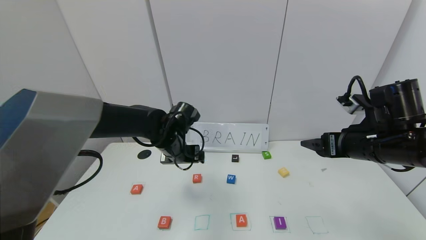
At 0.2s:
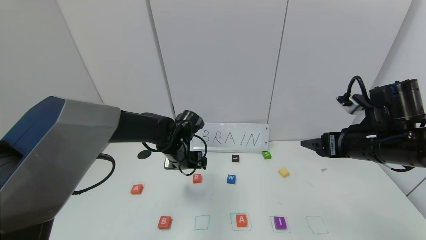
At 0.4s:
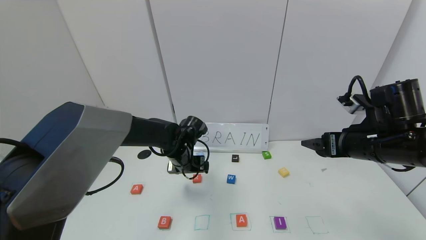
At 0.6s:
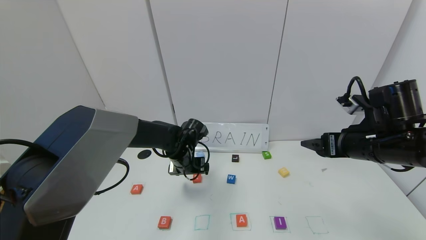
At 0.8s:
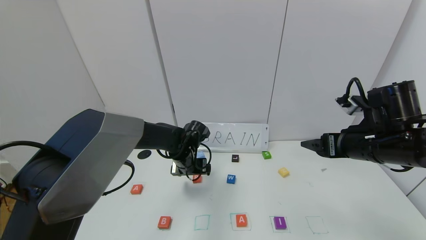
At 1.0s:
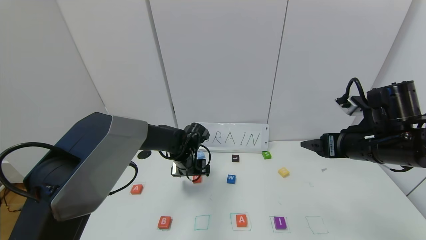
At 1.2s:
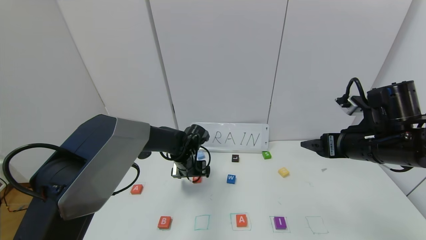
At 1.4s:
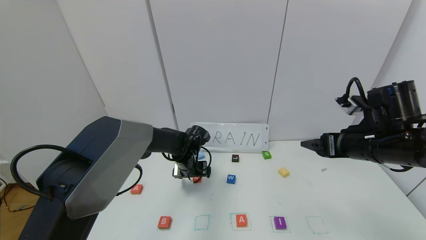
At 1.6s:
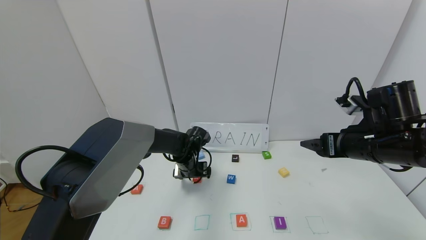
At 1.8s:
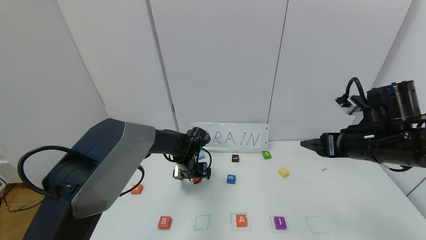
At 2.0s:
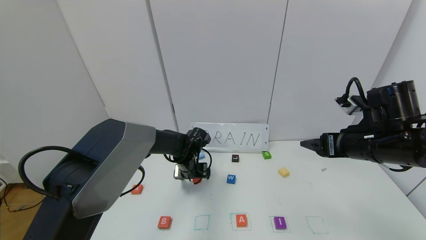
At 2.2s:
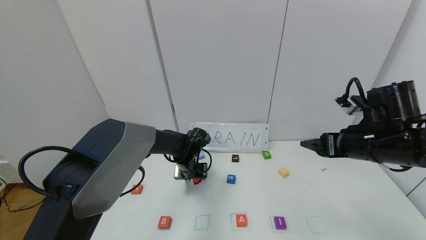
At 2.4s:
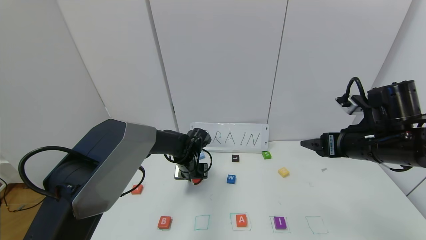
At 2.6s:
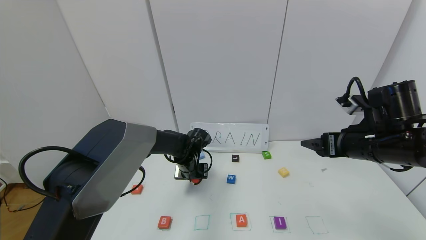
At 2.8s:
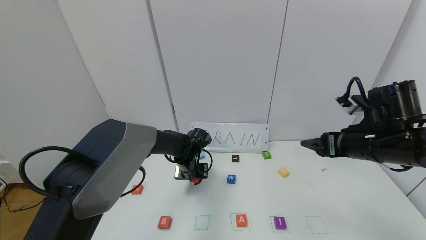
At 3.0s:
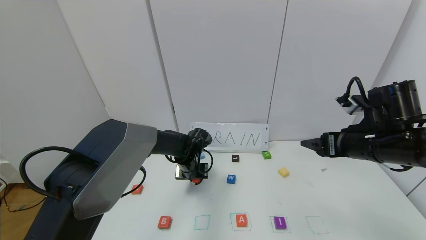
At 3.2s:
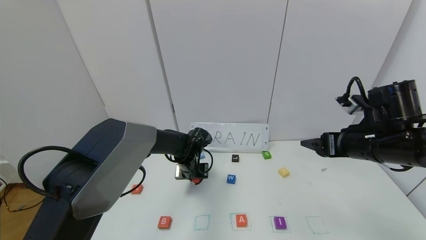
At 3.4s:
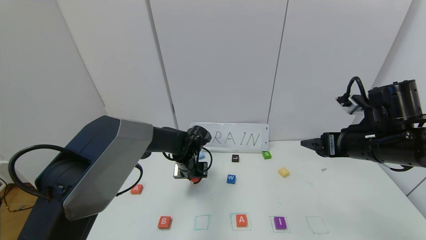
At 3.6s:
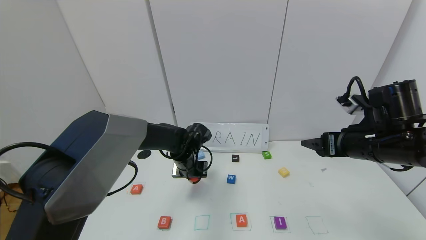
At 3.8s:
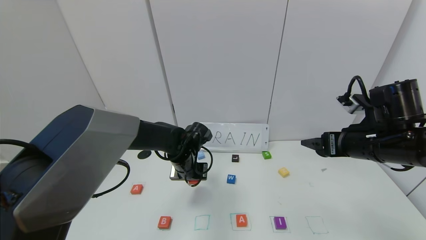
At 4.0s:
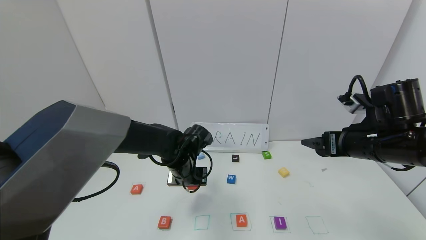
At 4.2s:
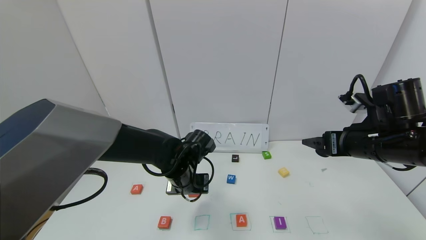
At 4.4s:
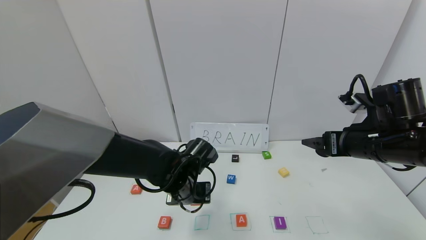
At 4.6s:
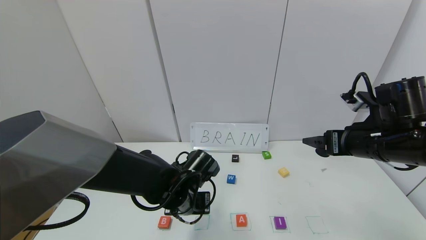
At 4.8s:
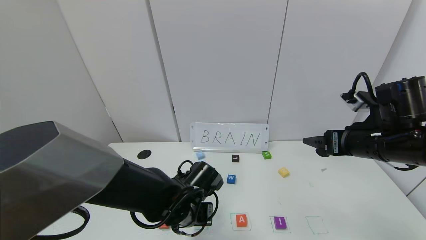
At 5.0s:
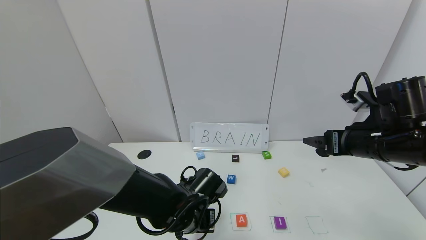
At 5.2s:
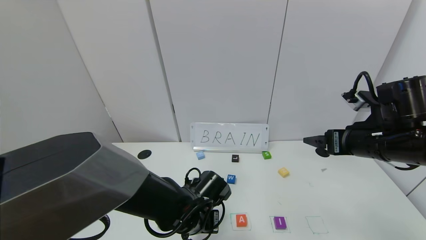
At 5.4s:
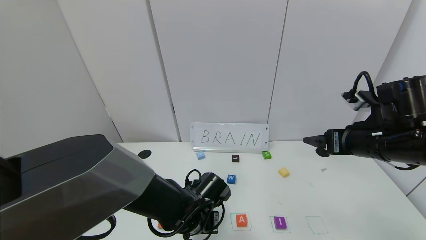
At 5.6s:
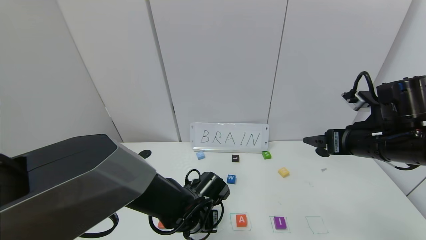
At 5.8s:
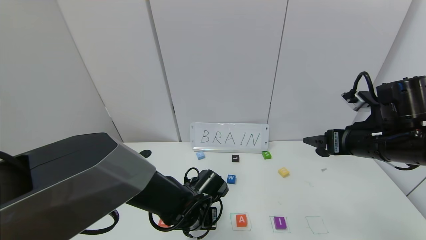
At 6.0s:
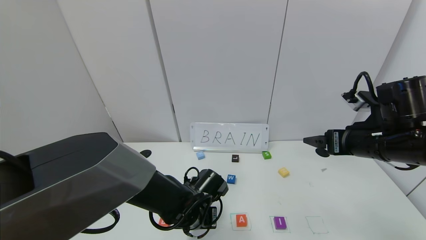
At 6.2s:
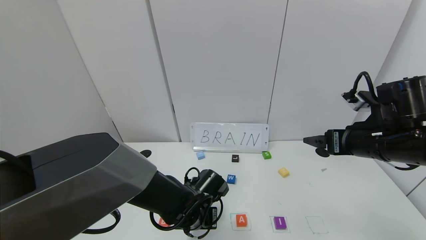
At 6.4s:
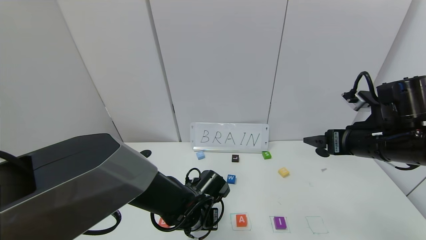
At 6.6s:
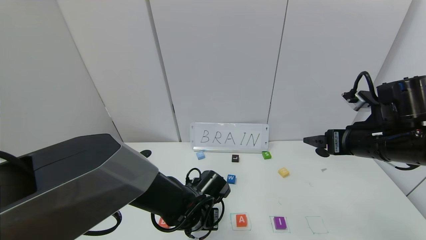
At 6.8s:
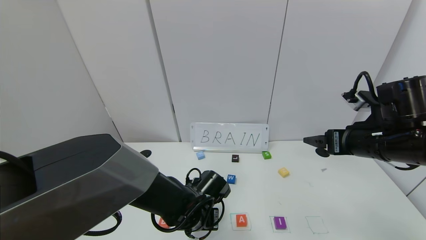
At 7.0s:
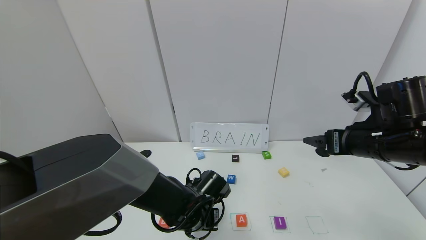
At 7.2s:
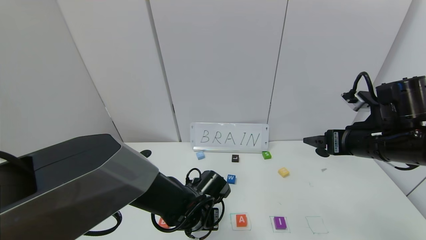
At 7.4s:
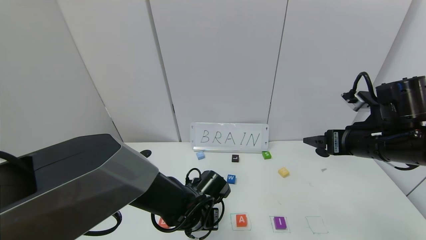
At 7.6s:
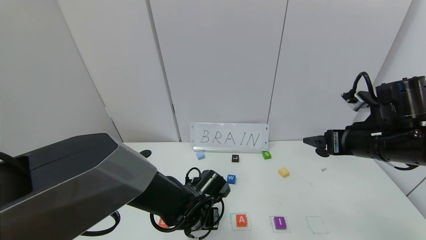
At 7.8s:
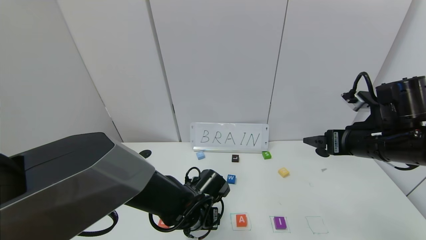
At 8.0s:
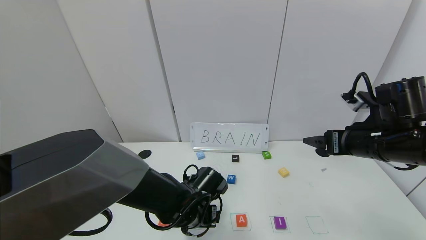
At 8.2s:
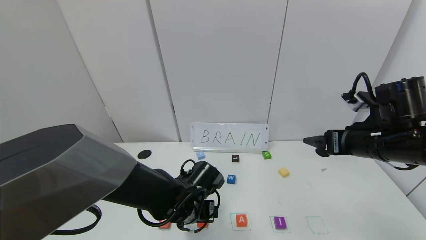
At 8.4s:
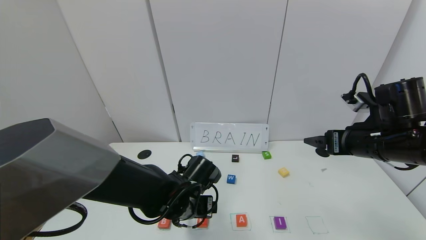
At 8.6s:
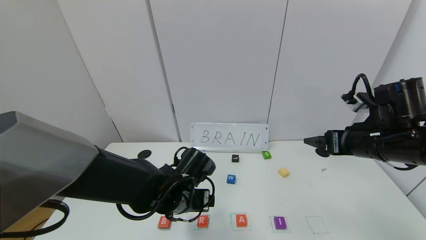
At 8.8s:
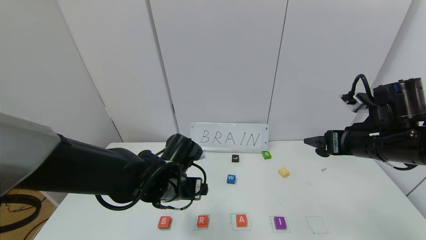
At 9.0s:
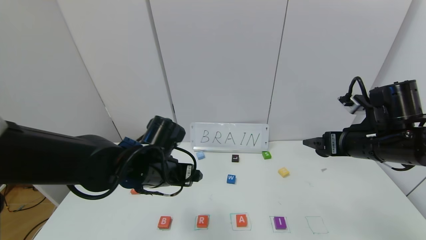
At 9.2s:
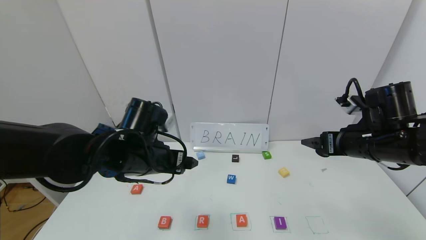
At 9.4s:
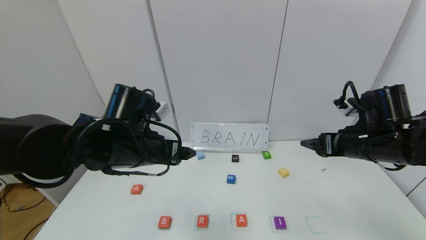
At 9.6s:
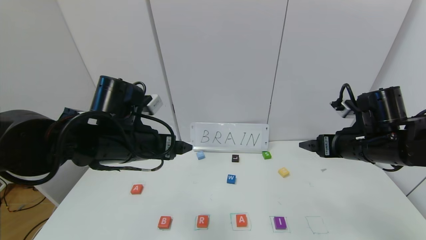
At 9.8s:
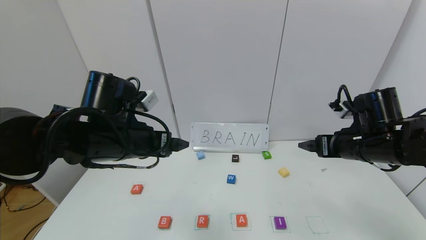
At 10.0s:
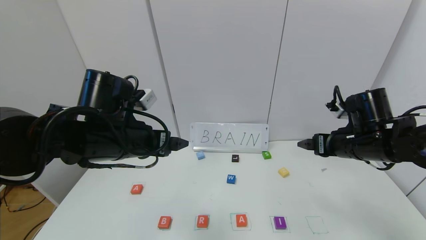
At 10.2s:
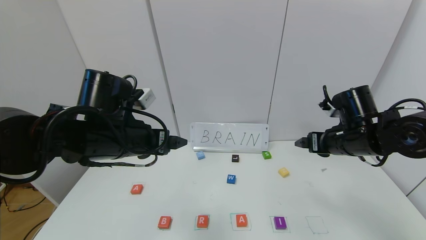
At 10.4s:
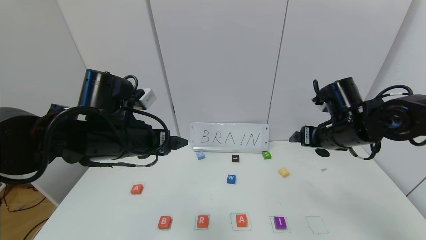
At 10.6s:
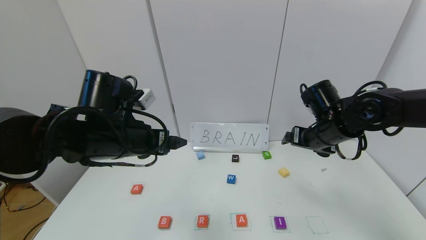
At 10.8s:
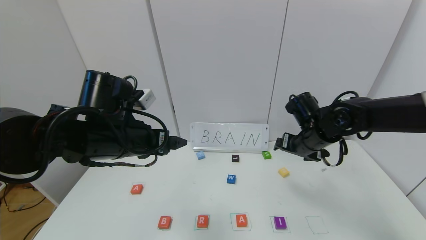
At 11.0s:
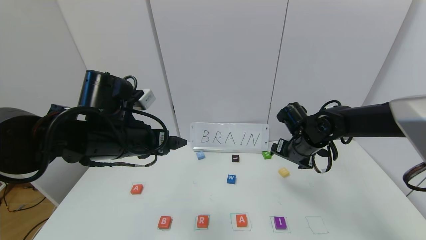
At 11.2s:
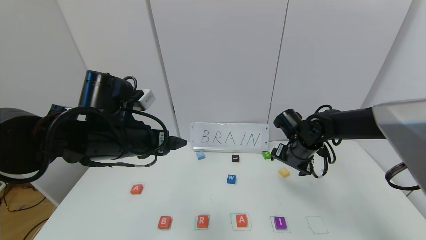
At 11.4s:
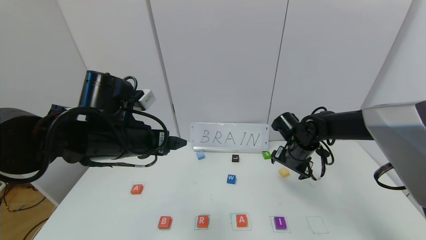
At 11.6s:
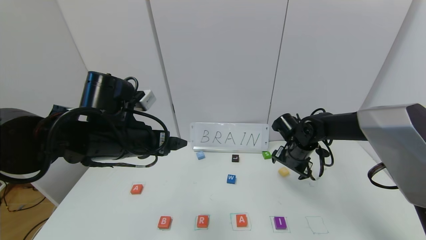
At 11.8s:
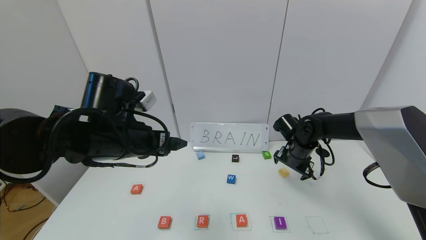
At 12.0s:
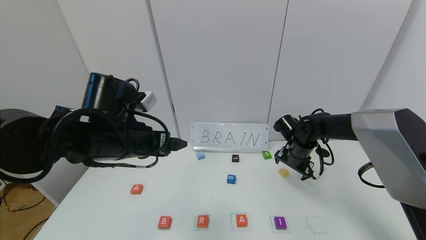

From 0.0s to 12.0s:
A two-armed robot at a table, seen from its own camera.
Task of the whole recording: use the gripper to find blocks with the letters b, a, a, and i on the table and arrange them into BAAI, then find r and N and turn the arranged baai into brian.
Step, from 0.0s to 7.2s: Place the block R in the second location.
From 0.0s to 1.6s: The left gripper goes roughly 10 cm downward.
From 1.6s to 3.0s: The left gripper closes.
From 3.0s to 4.4s: The left gripper shifts about 15 cm backward.
From 4.4s to 6.0s: The left gripper shifts some 5 cm downward.
From 6.0s to 7.6s: The left gripper opens up.
From 7.6s to 9.0s: The left gripper goes approximately 15 cm upward and to the left.
From 9.0s to 10.4s: The left gripper moves upward, roughly 5 cm, while the right gripper is displaced forward by approximately 5 cm.
From 10.4s to 12.0s: The right gripper moves downward and forward, some 15 cm.

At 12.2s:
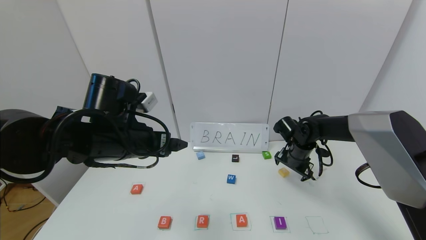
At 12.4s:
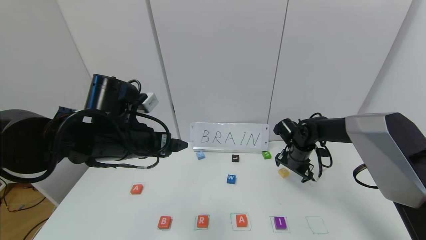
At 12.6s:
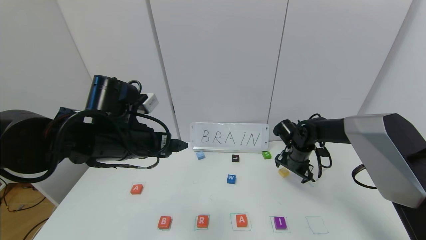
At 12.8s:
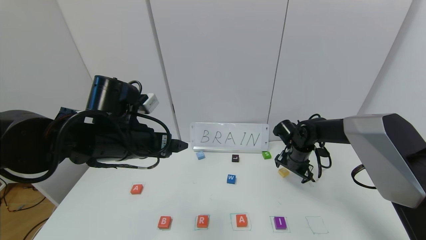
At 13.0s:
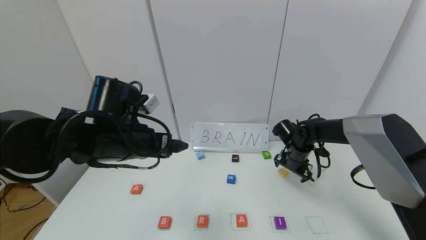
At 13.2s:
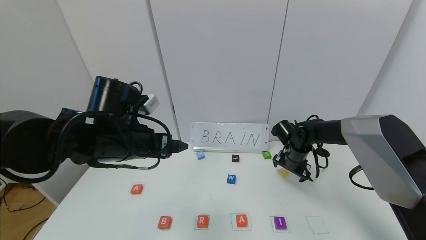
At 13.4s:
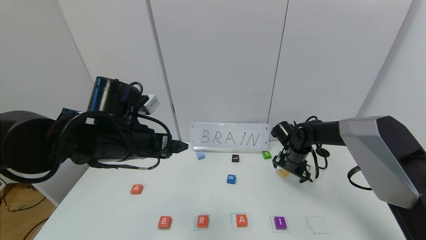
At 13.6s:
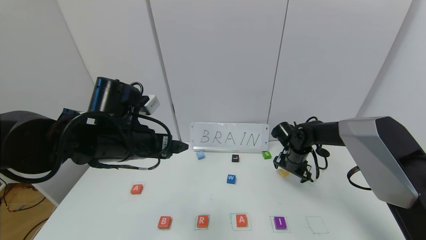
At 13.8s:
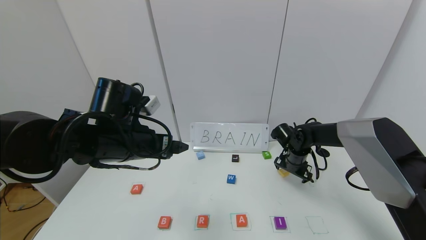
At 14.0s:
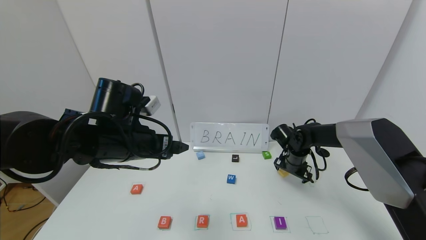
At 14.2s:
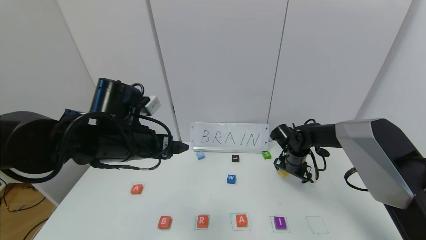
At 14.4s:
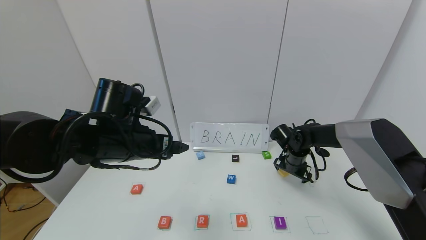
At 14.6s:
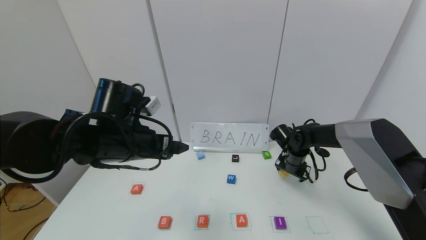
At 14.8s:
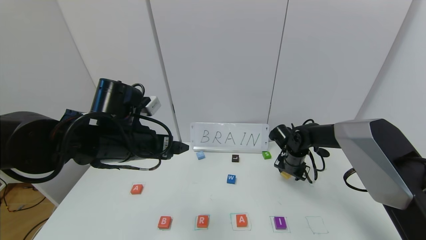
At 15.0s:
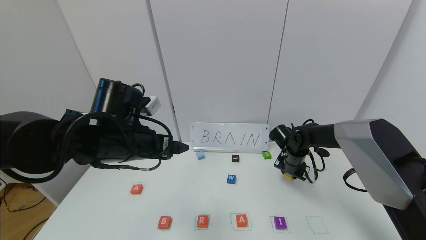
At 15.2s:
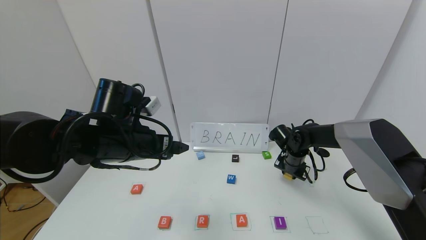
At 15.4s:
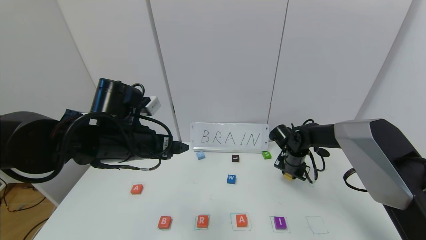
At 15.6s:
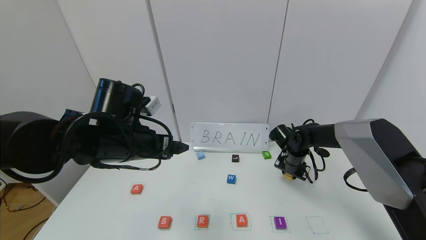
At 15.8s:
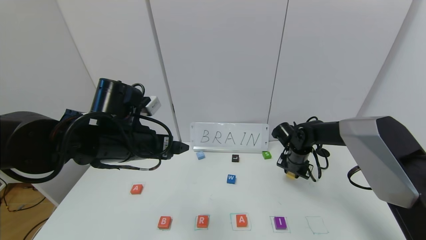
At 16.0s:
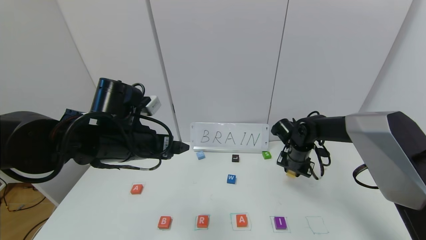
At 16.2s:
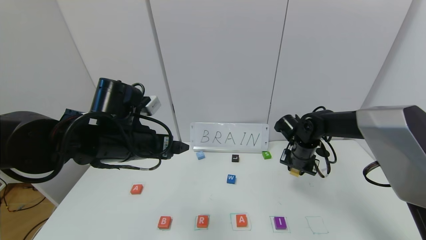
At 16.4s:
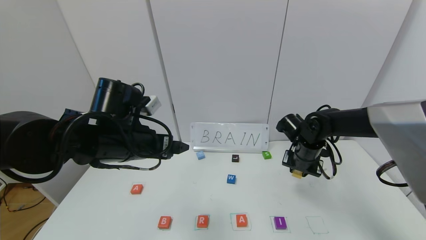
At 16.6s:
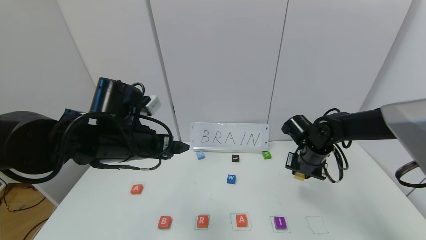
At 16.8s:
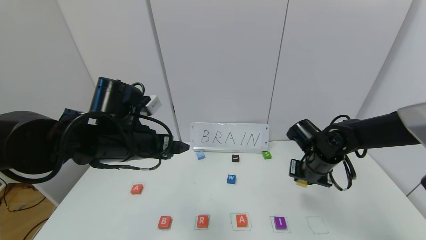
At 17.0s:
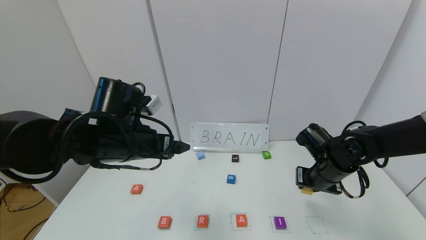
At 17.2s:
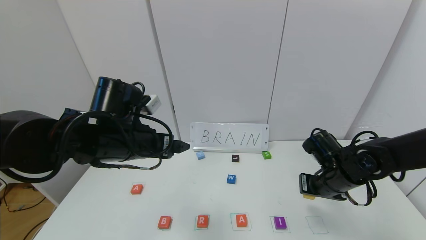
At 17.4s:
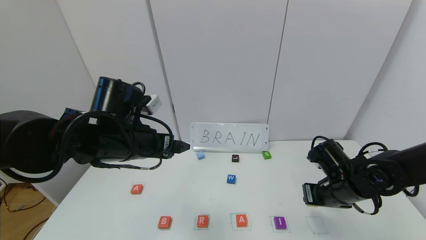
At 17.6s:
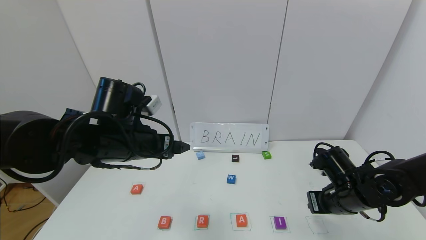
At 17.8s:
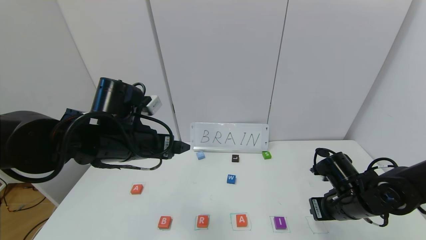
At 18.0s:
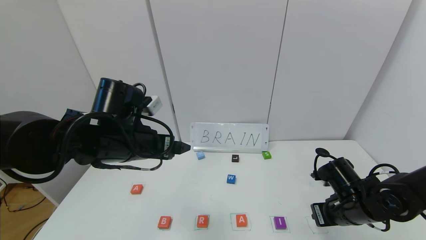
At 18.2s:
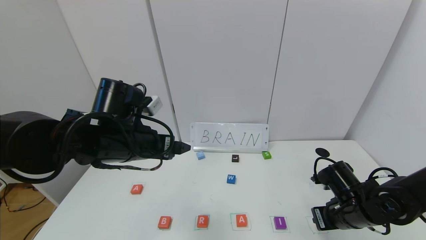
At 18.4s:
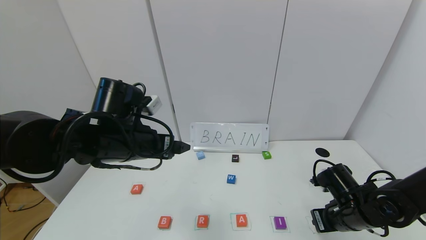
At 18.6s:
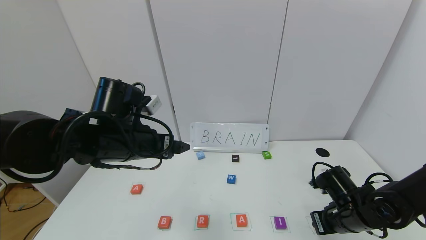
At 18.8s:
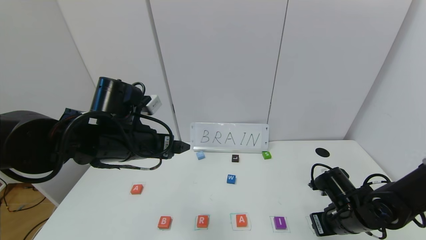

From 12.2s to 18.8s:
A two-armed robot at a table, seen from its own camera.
Task of the whole recording: use the gripper to find blocks with the letters b, a, a, and i on the table and arrange them into BAAI, then find r and N and turn the arranged baai into brian.
From 12.2s to 13.8s: The grippers stay close to where they were, moving slightly.
From 13.8s to 15.4s: The right gripper closes up.
From 15.4s to 17.2s: The right gripper shifts roughly 15 cm backward.
From 17.2s to 18.8s: The right gripper travels downward by some 5 cm.
